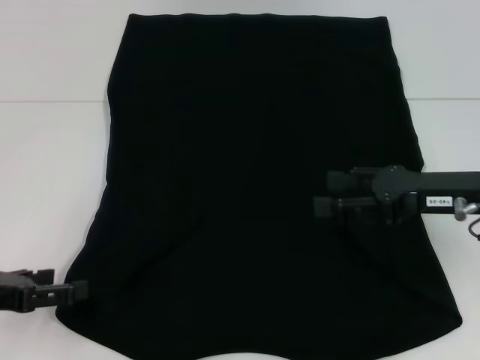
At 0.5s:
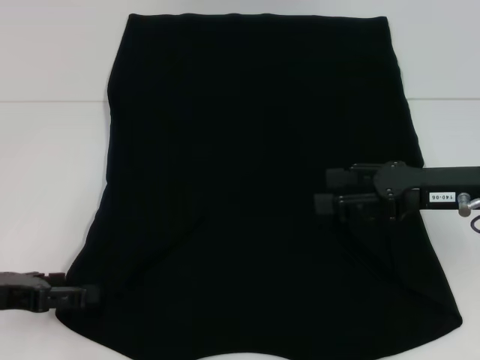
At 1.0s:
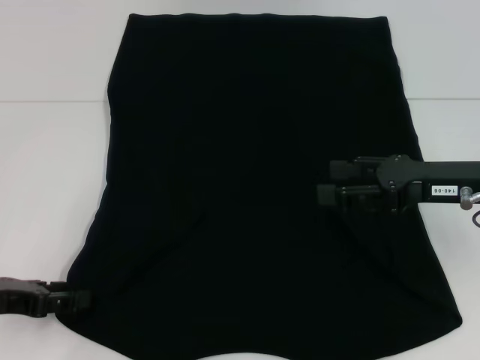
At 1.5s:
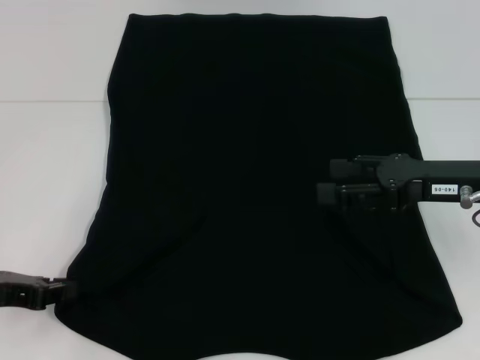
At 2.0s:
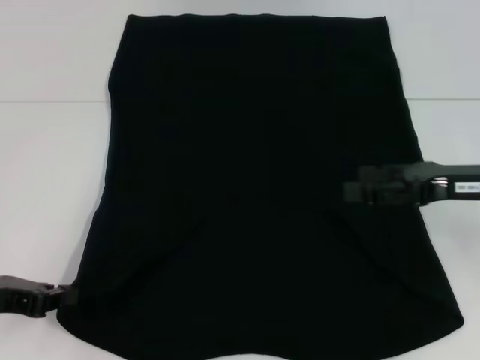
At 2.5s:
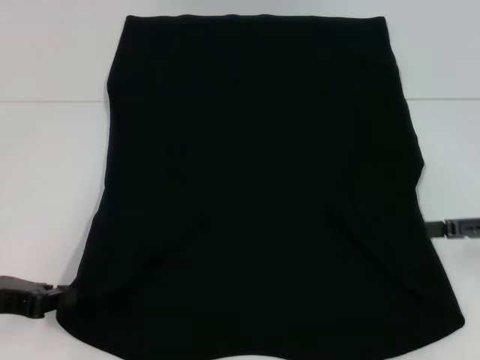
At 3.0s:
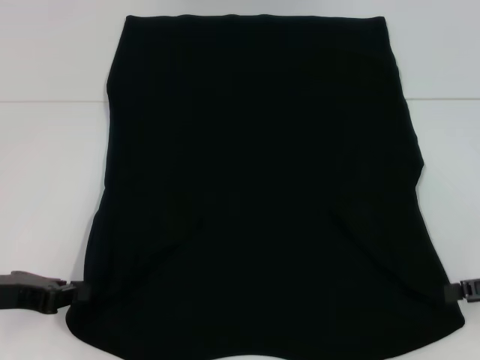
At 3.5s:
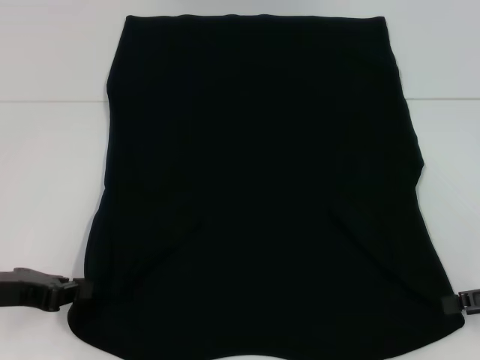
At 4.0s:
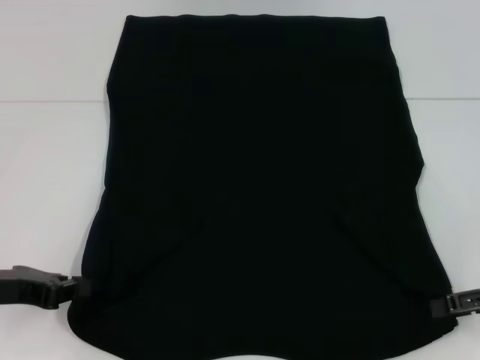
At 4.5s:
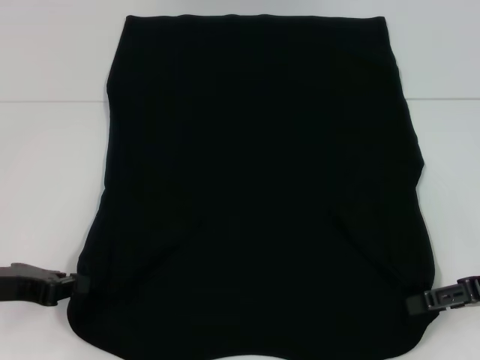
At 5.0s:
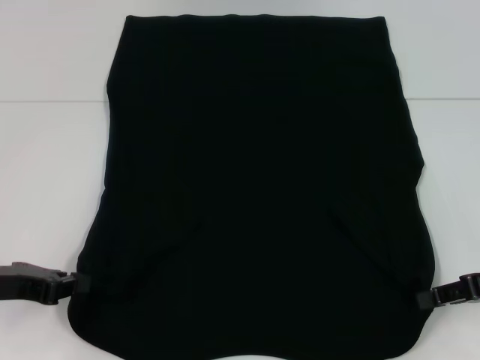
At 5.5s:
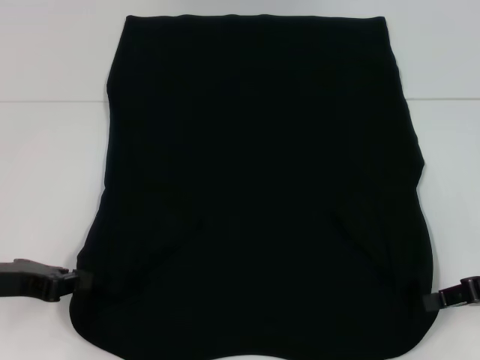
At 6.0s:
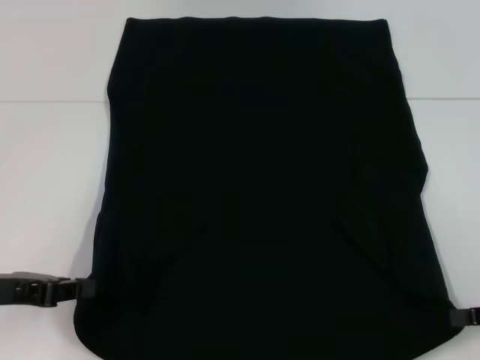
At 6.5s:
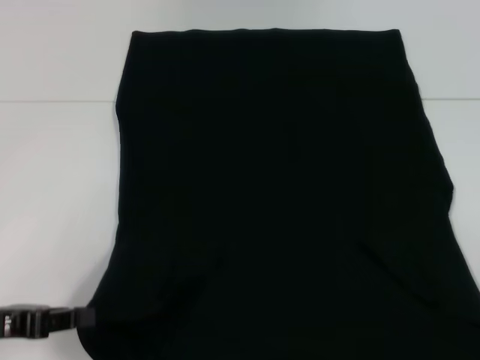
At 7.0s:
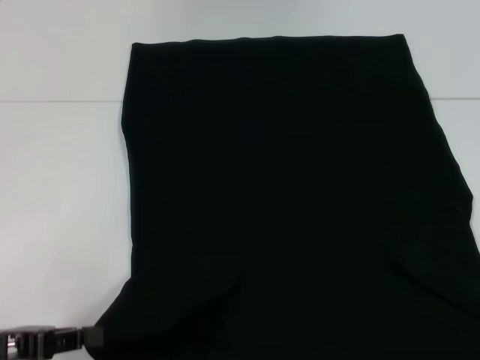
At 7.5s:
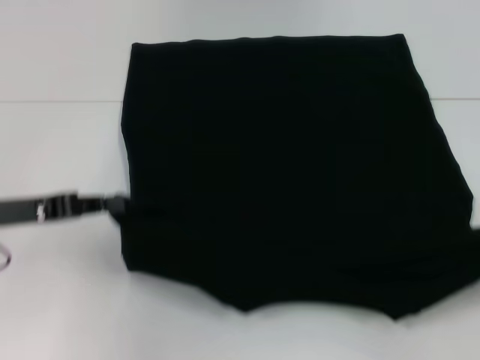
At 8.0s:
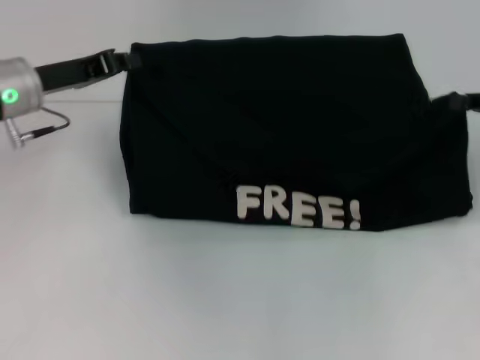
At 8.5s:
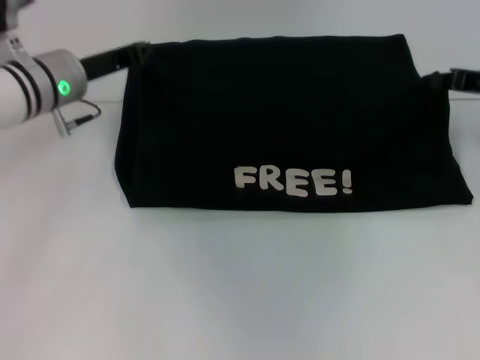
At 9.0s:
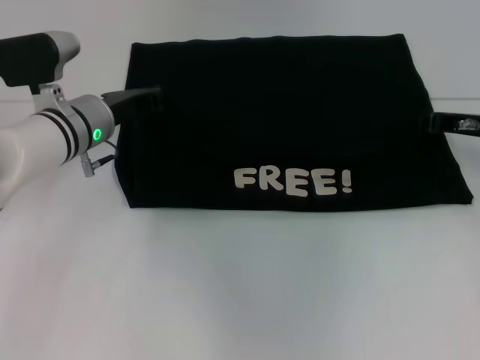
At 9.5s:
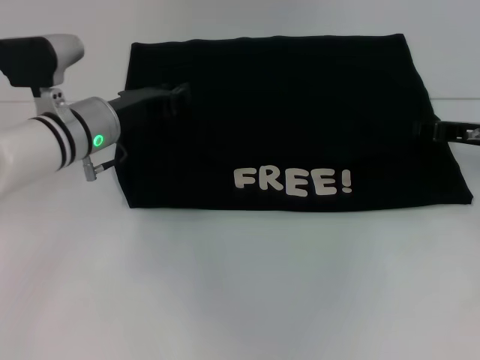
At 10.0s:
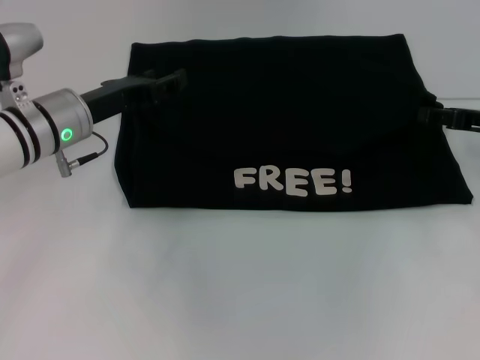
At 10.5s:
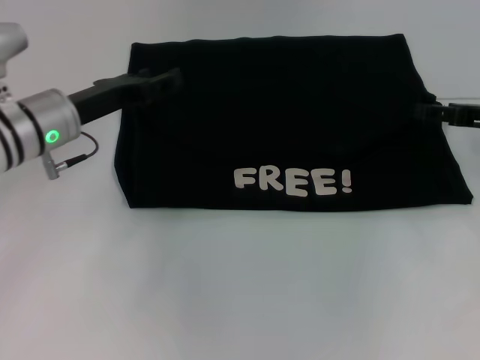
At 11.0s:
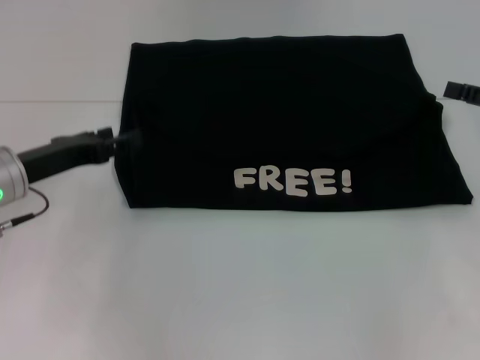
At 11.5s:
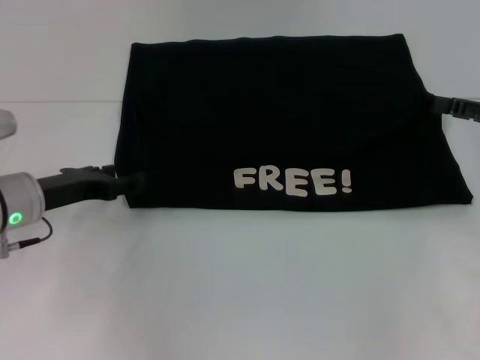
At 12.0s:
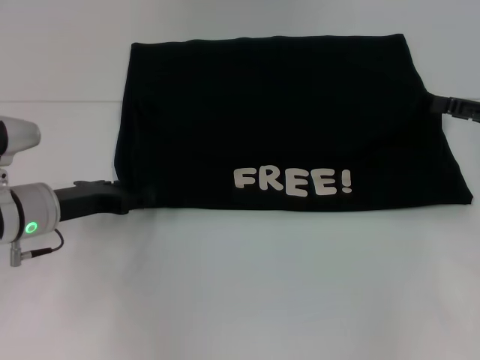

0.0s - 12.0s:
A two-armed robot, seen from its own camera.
Step, 0.0s - 2.0s: Grab the bottom left corner with your left hand.
Step, 2.5s - 5.0s: Grab the bottom right corner with your right hand.
Step, 5.5s - 9.0s: Fold the clothes with your left hand.
Step, 5.5s - 9.0s: Fold the clothes with your right hand.
0.0s - 2.0s: The left gripper closes up.
2.0s - 4.0s: The right gripper moves to the right and backward, approximately 10 cm.
4.0s - 6.0s: The right gripper closes.
6.0s - 8.0s: The right gripper heads forward and upward, covering roughly 15 cm, while the left gripper travels forward by roughly 15 cm.
8.0s - 10.0s: The right gripper opens its fingers. The left gripper opens up.
10.0s - 12.0s: The right gripper changes place by approximately 5 cm. Meanwhile the left gripper travels backward and downward by about 10 cm.

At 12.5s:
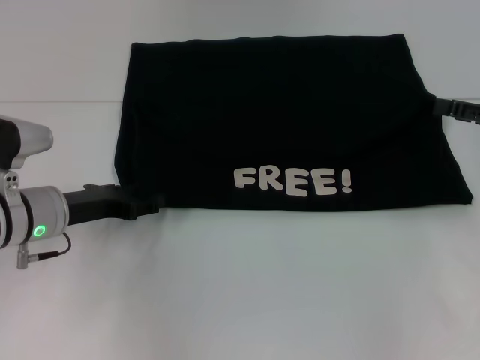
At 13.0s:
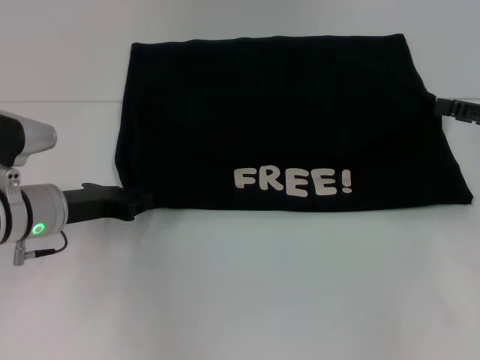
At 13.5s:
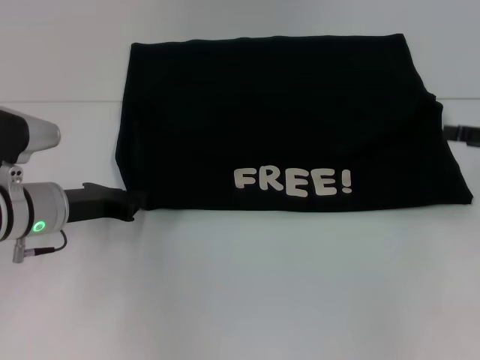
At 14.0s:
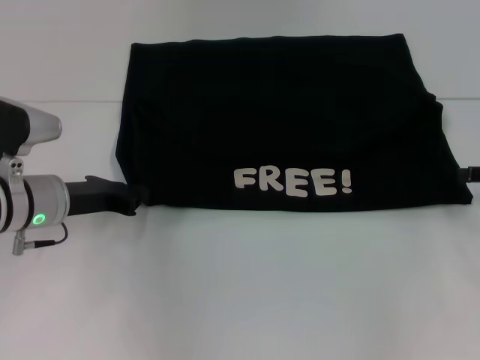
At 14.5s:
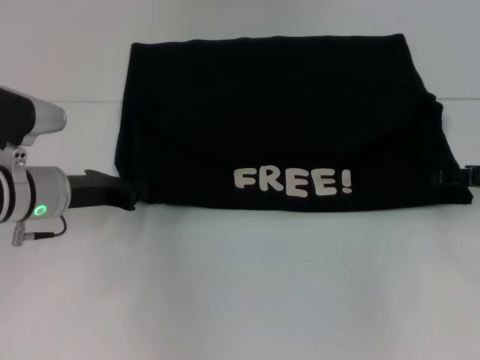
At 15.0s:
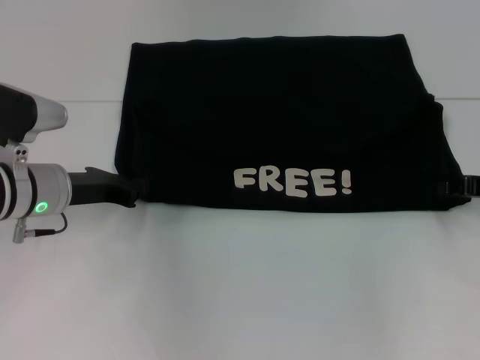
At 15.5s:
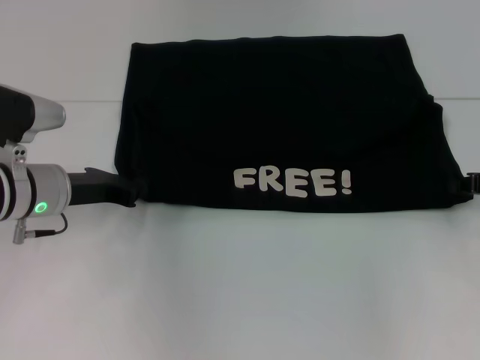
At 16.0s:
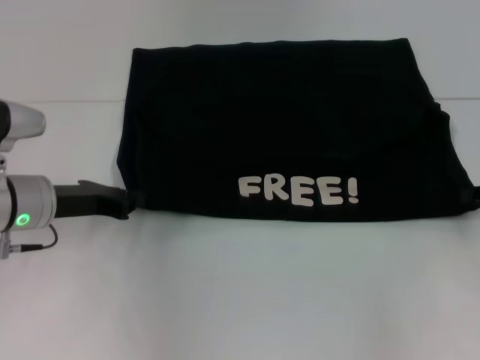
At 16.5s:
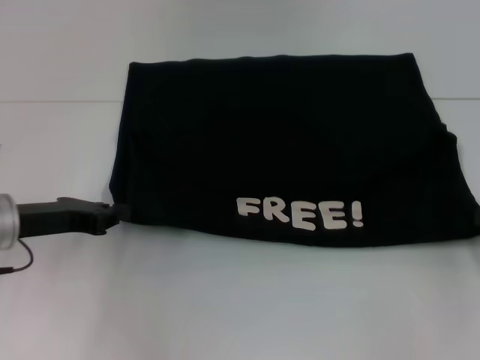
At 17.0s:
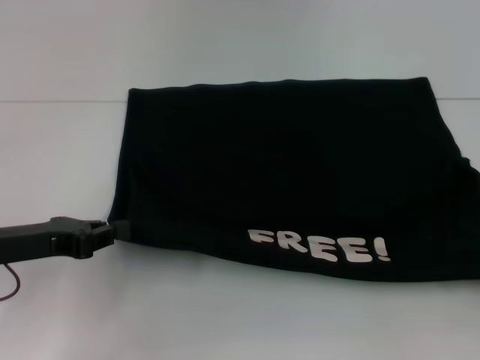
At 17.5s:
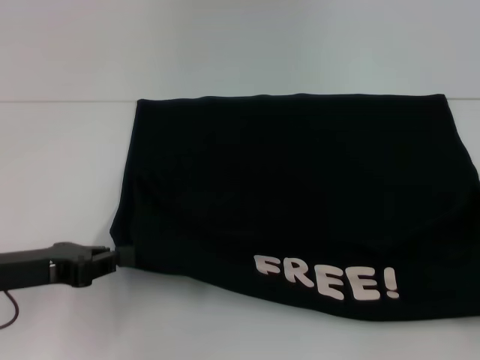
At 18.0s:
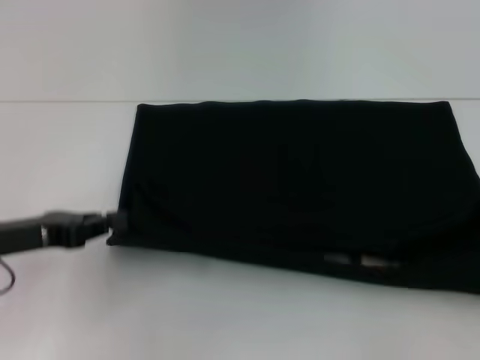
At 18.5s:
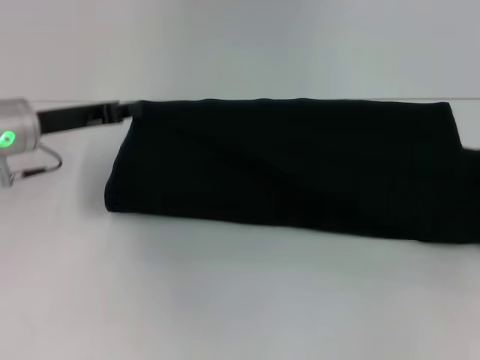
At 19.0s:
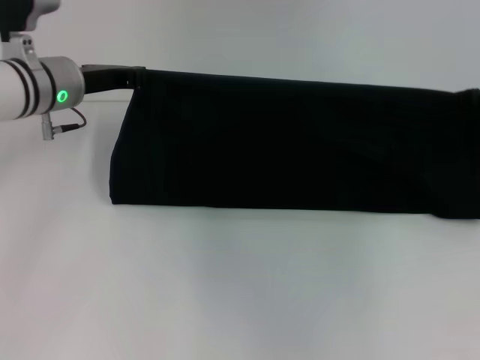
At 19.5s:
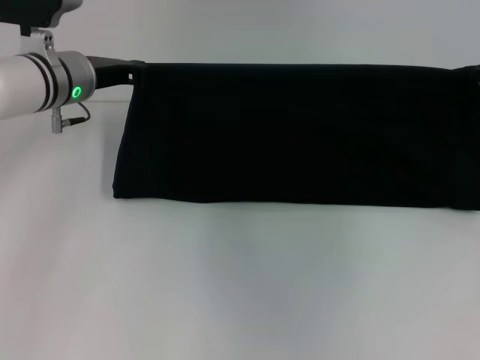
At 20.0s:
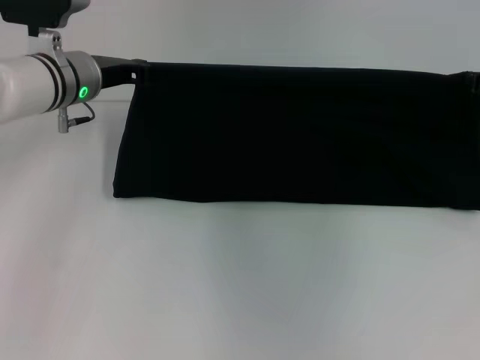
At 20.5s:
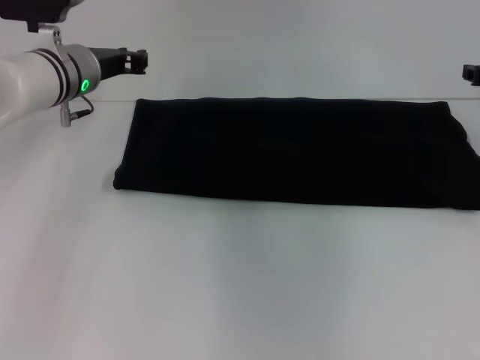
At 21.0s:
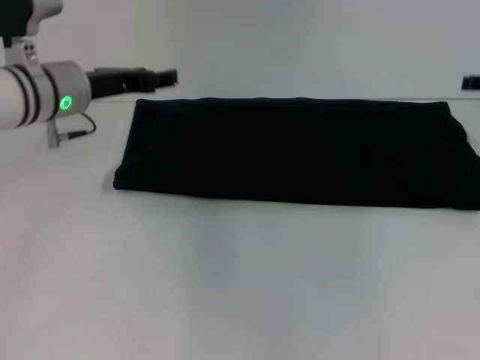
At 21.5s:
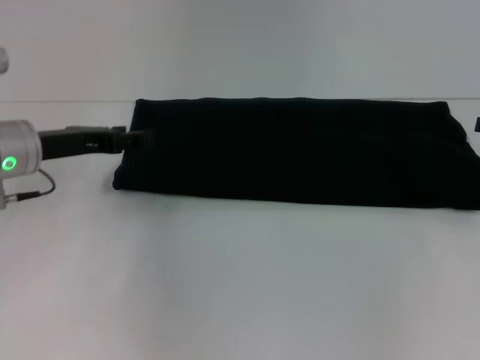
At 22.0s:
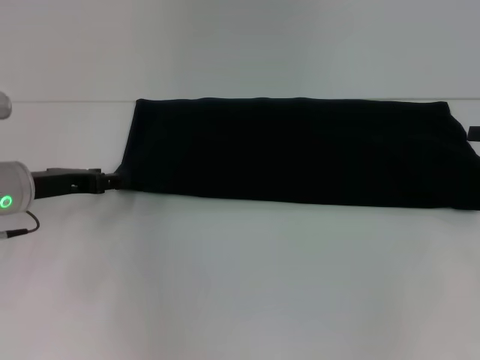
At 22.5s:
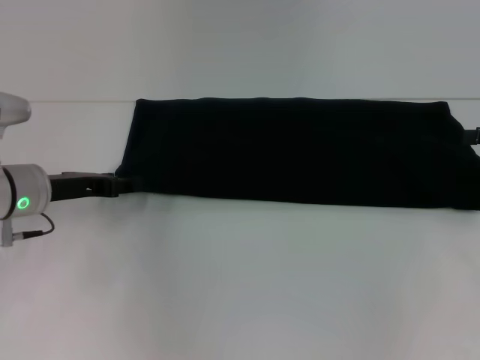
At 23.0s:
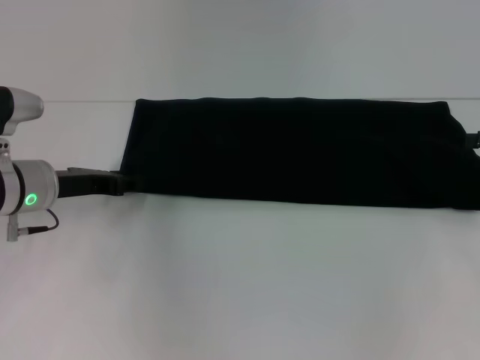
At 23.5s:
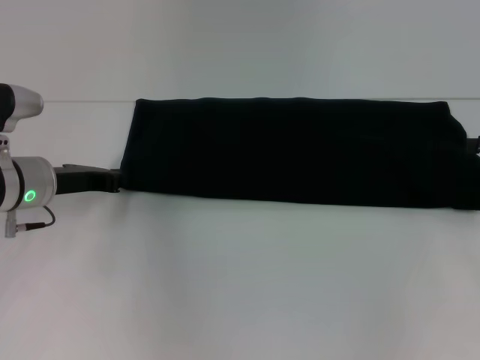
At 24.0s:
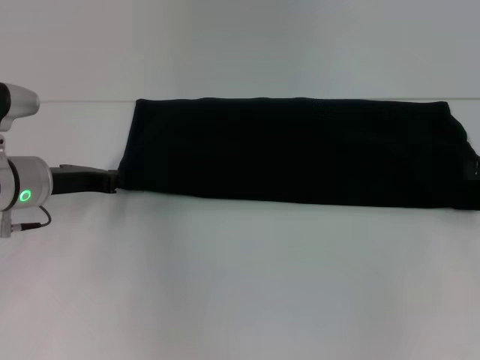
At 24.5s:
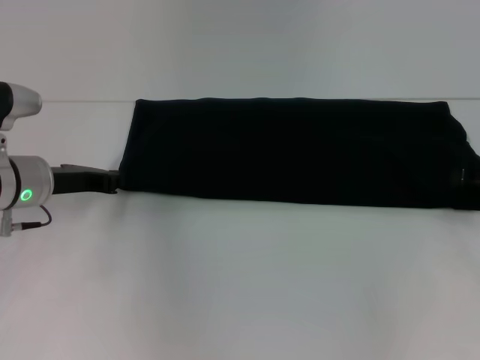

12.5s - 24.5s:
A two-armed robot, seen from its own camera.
Step, 12.5s - 17.5s: Pull the clothes with your left hand.
Step, 12.5s - 17.5s: Pull the clothes with your right hand.
Step, 18.0s - 21.0s: Fold the clothes with your right hand.
12.5s - 14.5s: The left gripper closes up.
14.5s - 16.5s: The left gripper moves roughly 5 cm. Meanwhile the right gripper heads backward, covering about 5 cm, and closes.
16.5s - 18.5s: The right gripper goes backward and returns, approximately 10 cm each way, while the left gripper is displaced forward by some 10 cm.
18.5s - 20.5s: The left gripper moves forward and to the right, roughly 10 cm; the right gripper shifts approximately 15 cm forward and to the left.
20.5s - 22.5s: The right gripper goes some 10 cm backward and to the right, and opens its fingers. The left gripper travels backward, downward and to the left by some 15 cm, and opens.
22.5s - 24.5s: The left gripper closes.

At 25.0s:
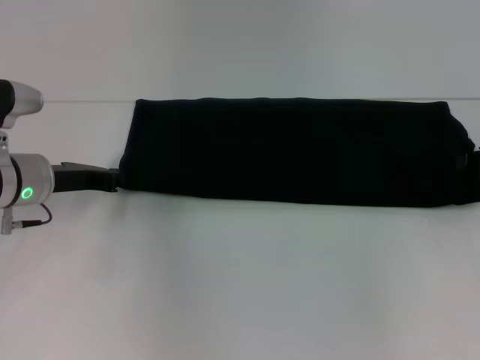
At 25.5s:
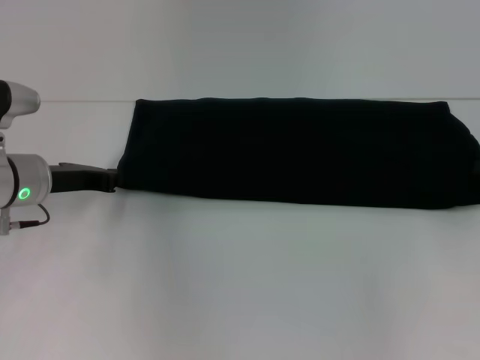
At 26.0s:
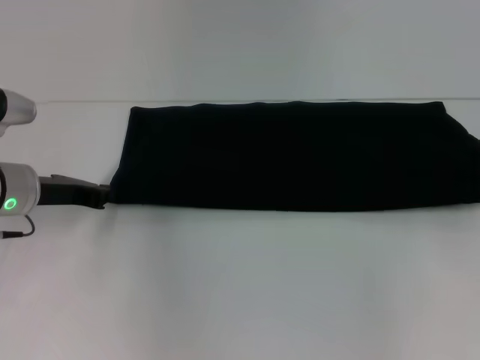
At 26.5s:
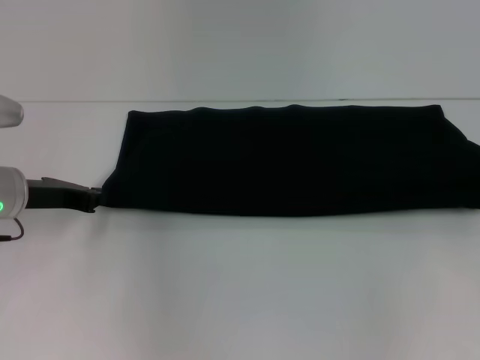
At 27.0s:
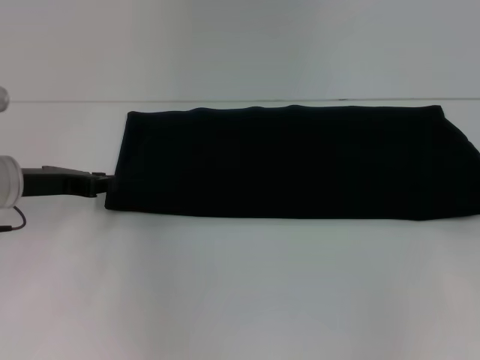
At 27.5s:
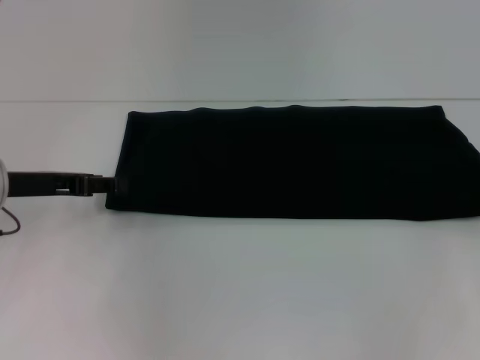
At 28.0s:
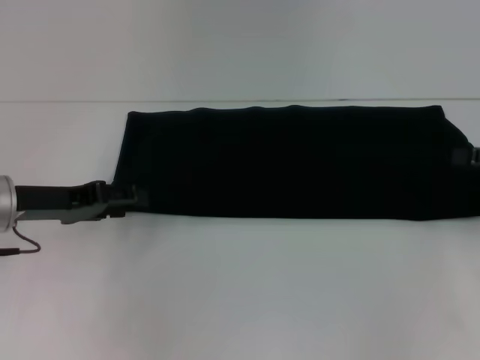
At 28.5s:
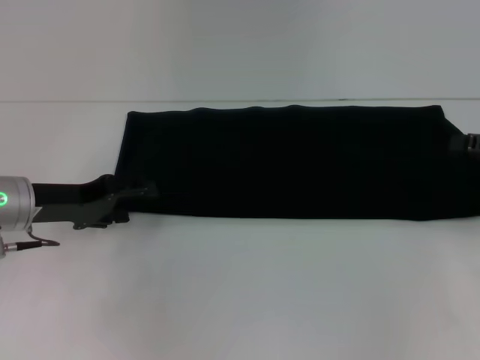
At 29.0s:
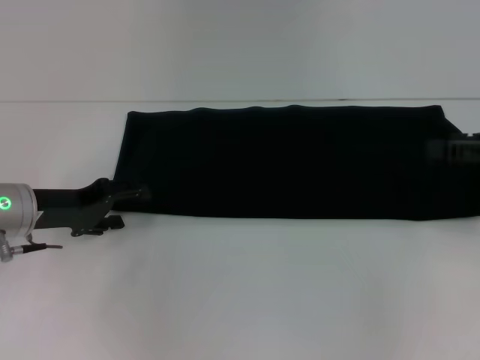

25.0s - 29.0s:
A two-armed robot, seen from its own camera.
25.0s - 27.0s: The right gripper closes up.
27.0s - 29.0s: The left gripper opens.
